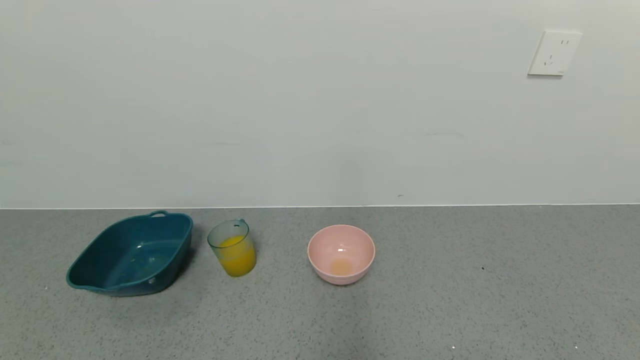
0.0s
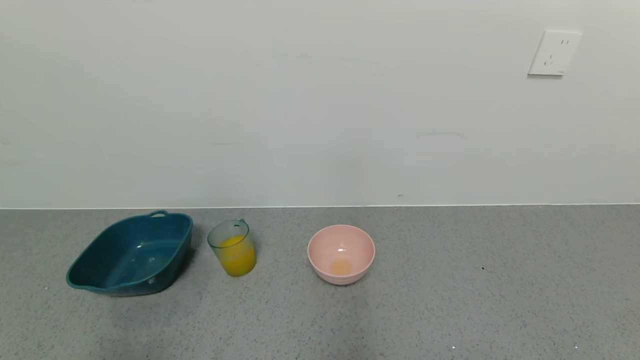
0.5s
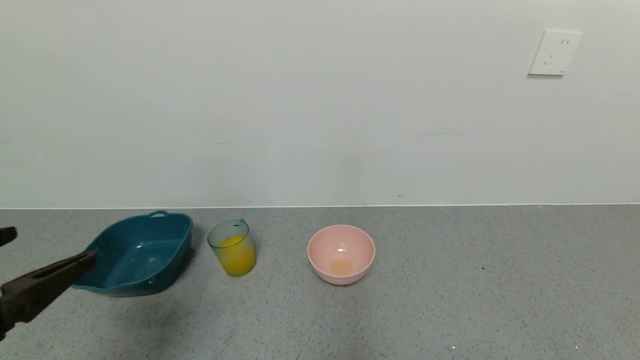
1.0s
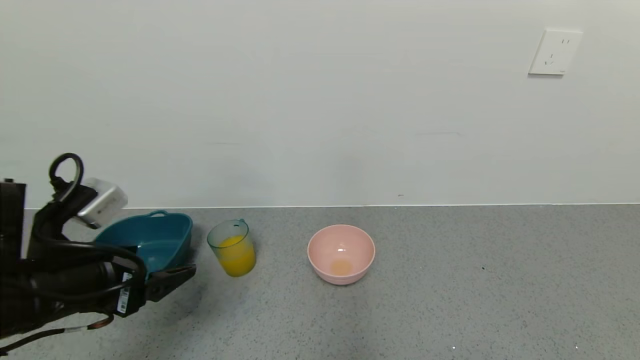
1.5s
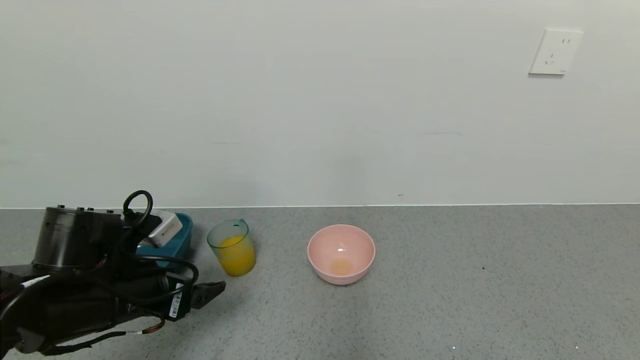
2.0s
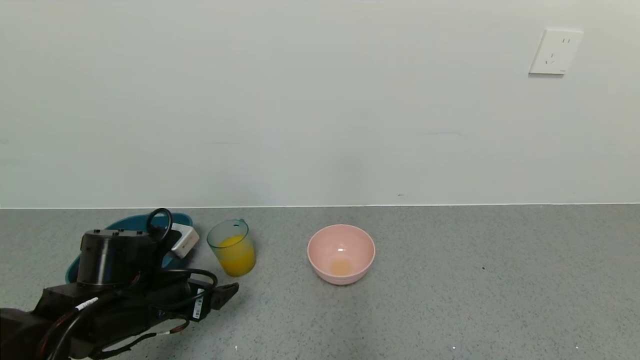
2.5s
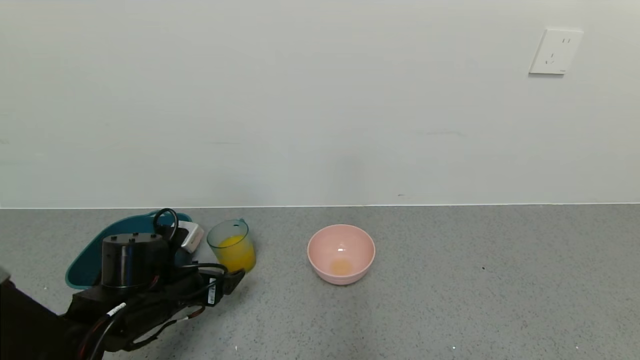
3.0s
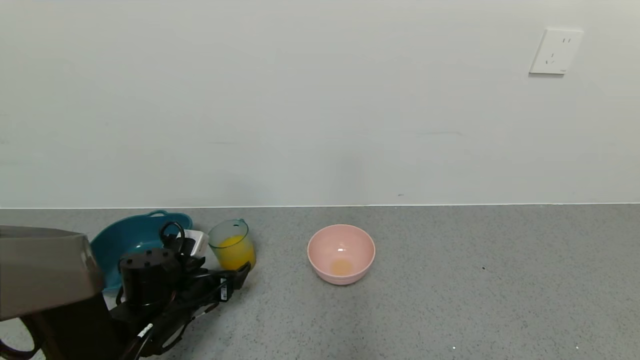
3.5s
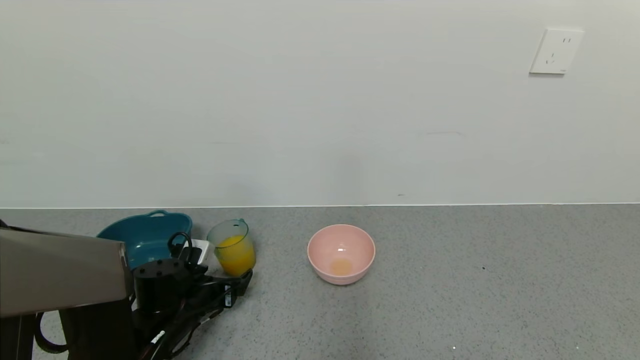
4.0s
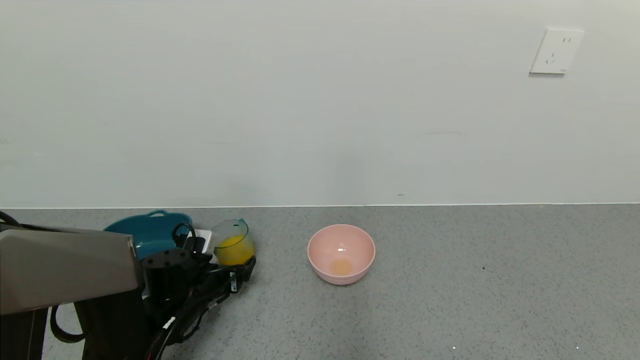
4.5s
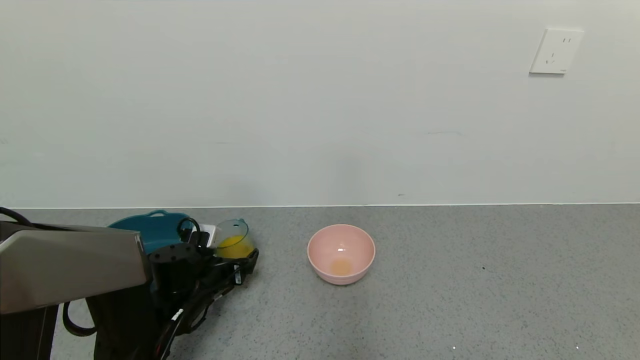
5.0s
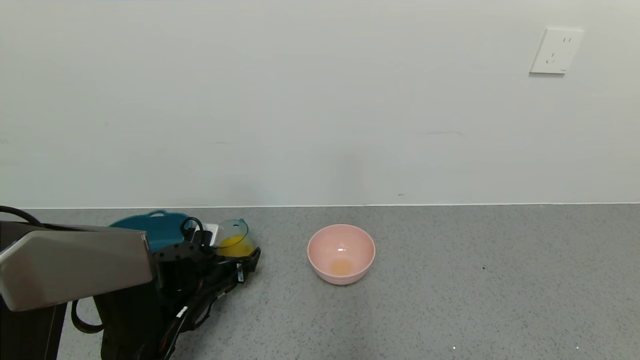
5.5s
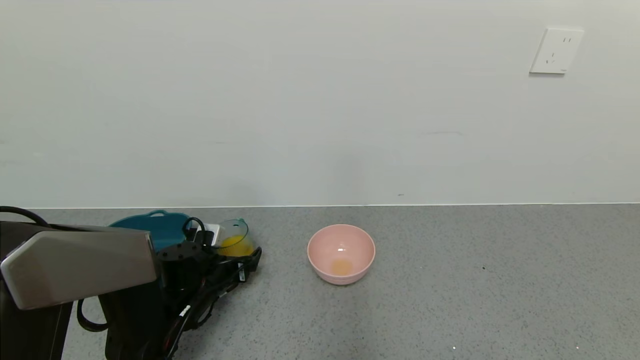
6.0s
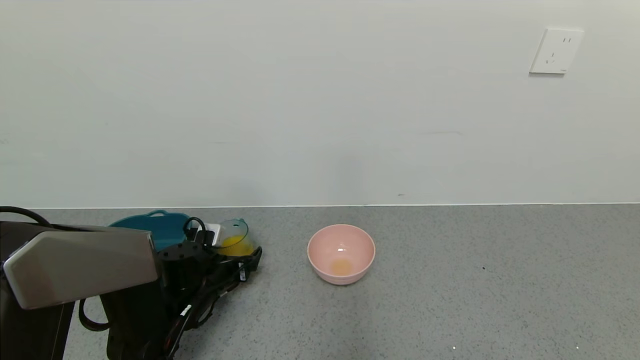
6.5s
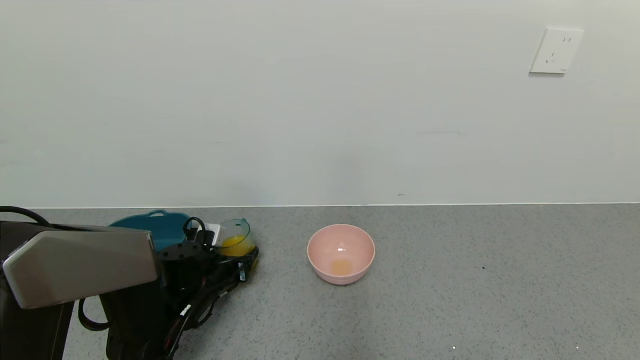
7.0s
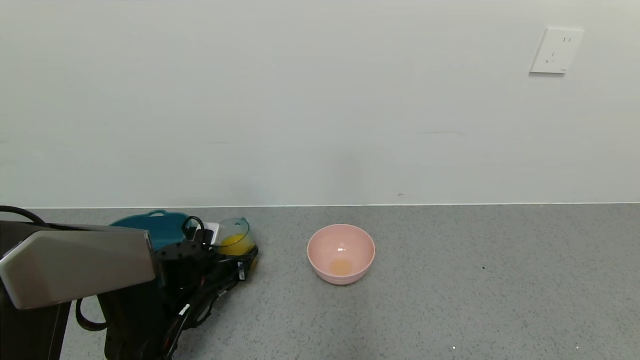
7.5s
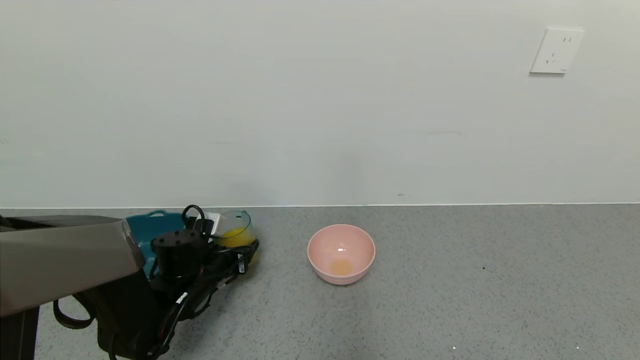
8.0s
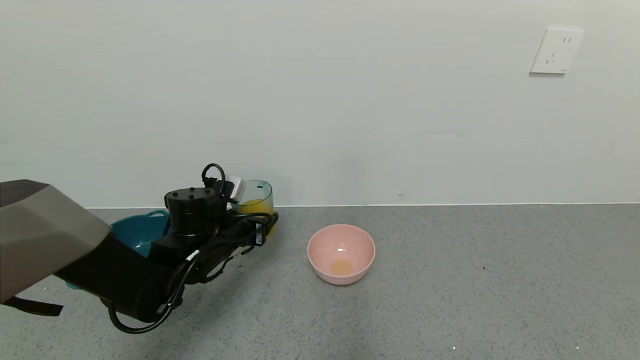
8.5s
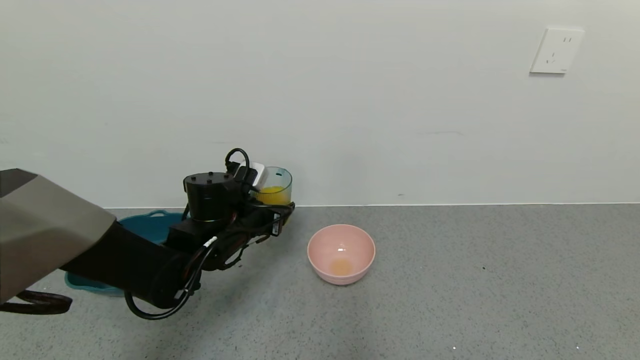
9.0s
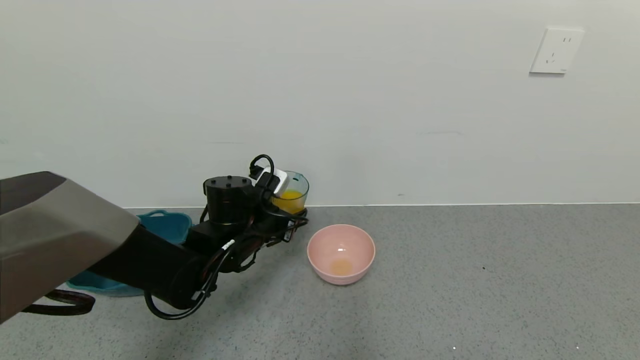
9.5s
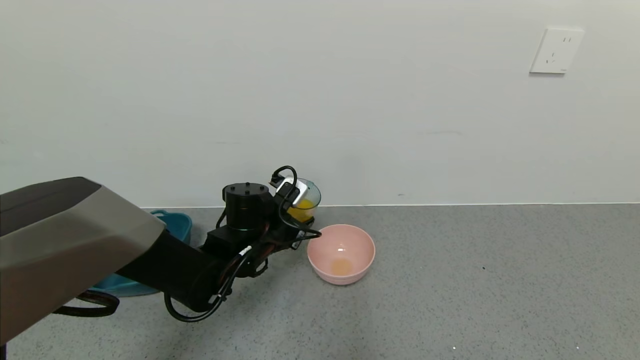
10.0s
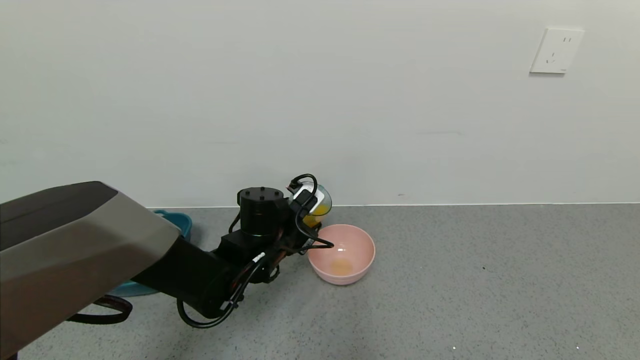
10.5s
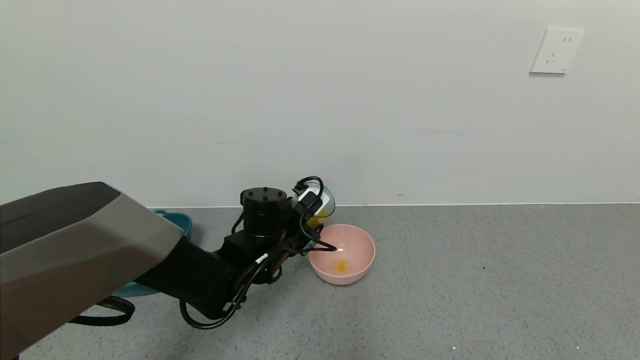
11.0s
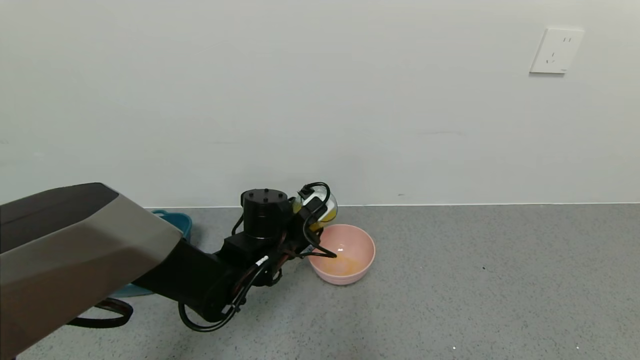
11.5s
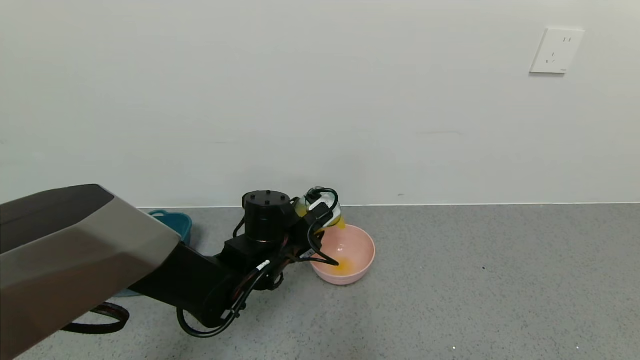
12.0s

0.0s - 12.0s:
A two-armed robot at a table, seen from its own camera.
Task of the whole recording: use a gripper to pick up the cup and pour the liquid into a bowl or tray.
Step, 0.0s - 7.5s: Pick up blue cup filled with orange juice with left gripper.
0.0s - 2.0s: The left gripper heads forward, covering about 25 cm.
2.0s - 4.0s: The left gripper moves downward and forward, approximately 15 cm.
4.0s - 6.0s: There are only small adjustments of the grippers.
6.0s - 8.0s: The left gripper closes.
8.0s - 10.0s: The left gripper shifts roughly 15 cm to the right and upward.

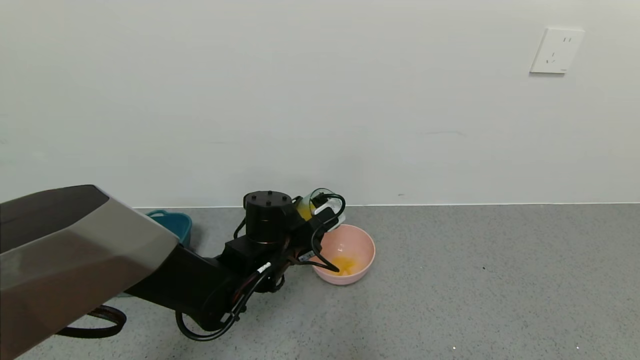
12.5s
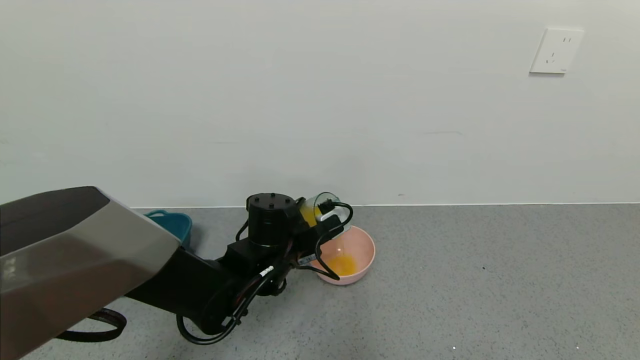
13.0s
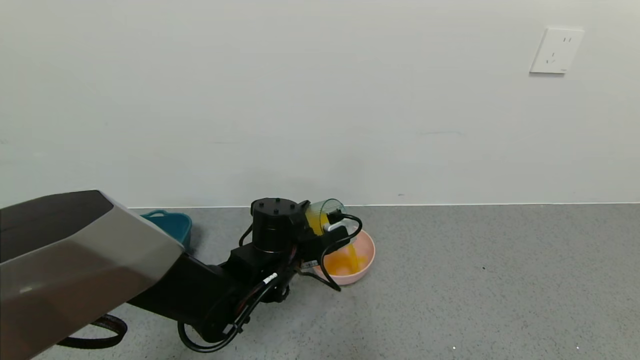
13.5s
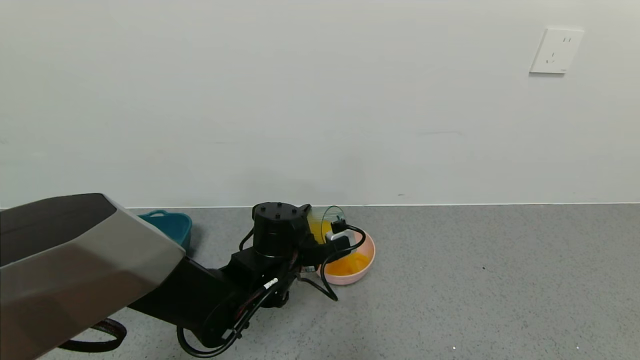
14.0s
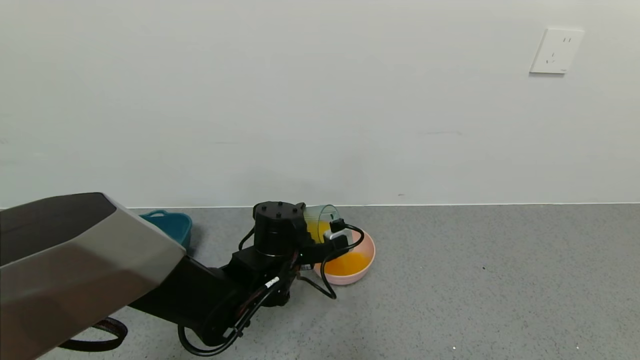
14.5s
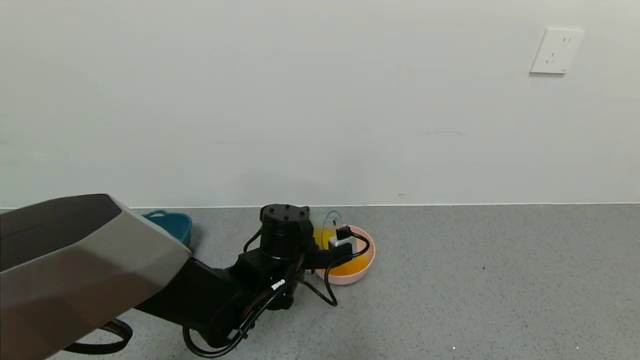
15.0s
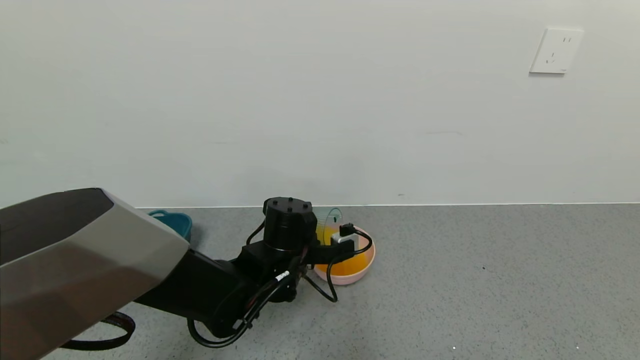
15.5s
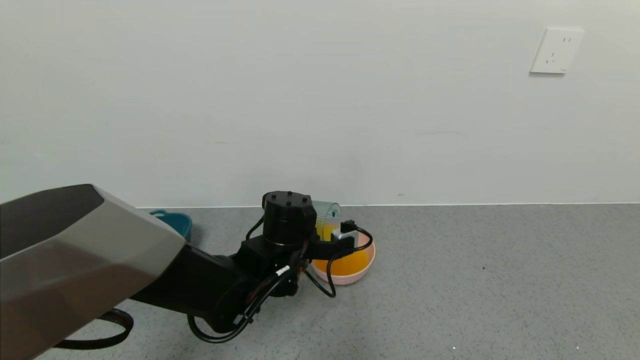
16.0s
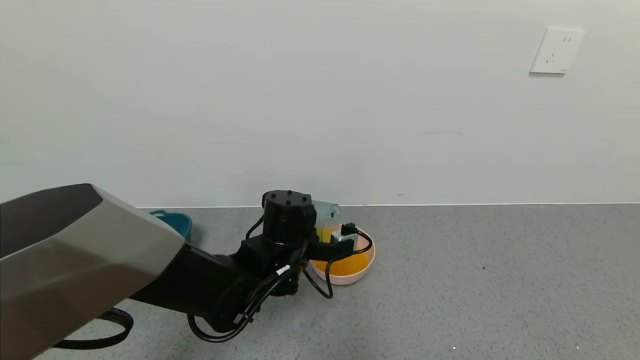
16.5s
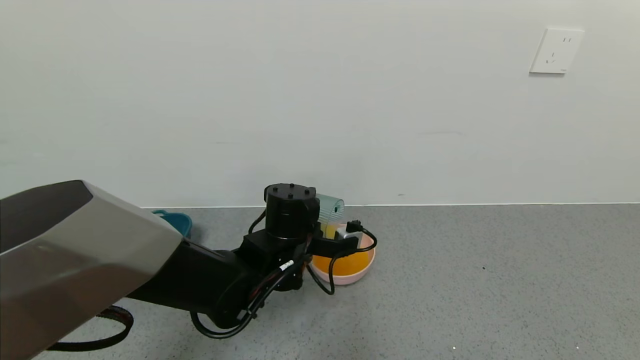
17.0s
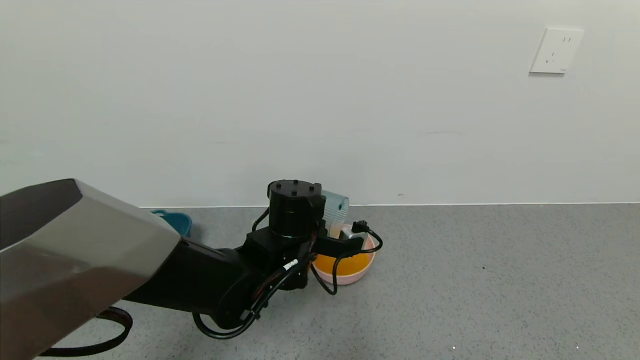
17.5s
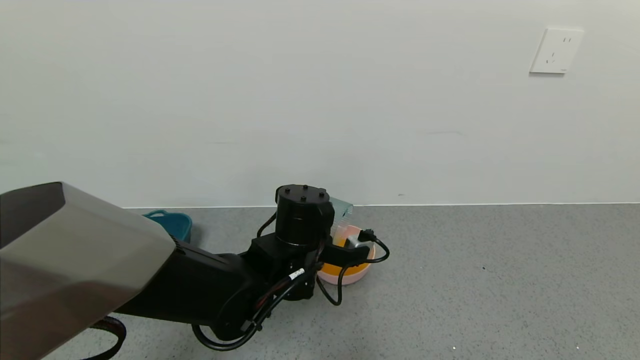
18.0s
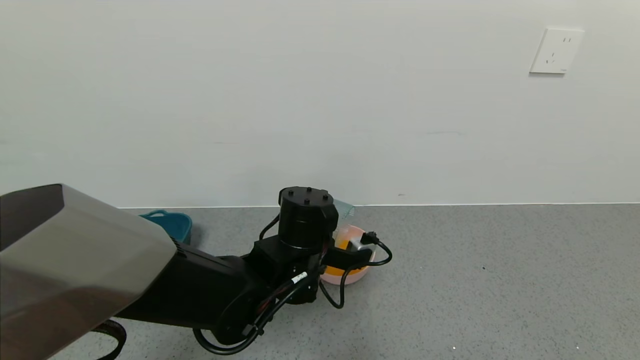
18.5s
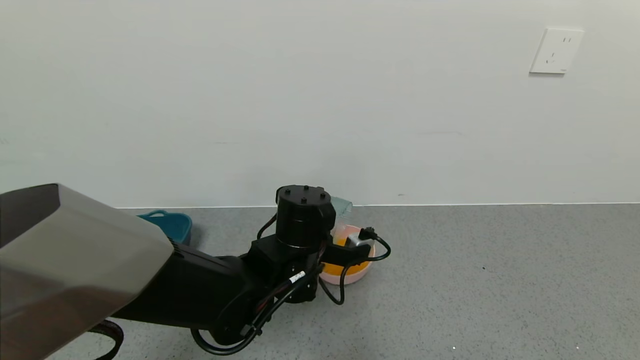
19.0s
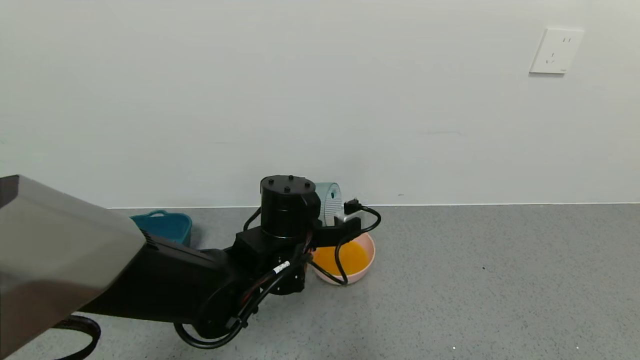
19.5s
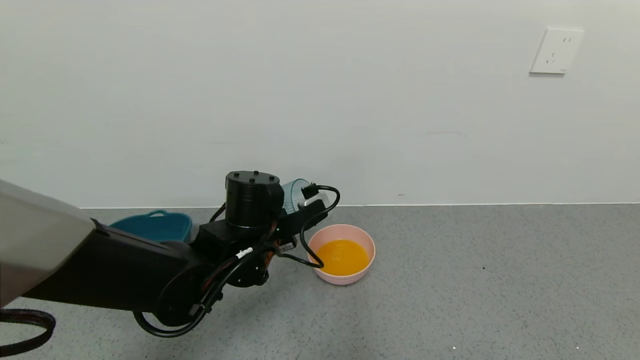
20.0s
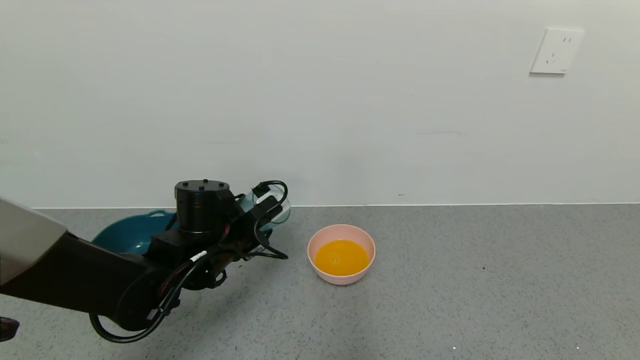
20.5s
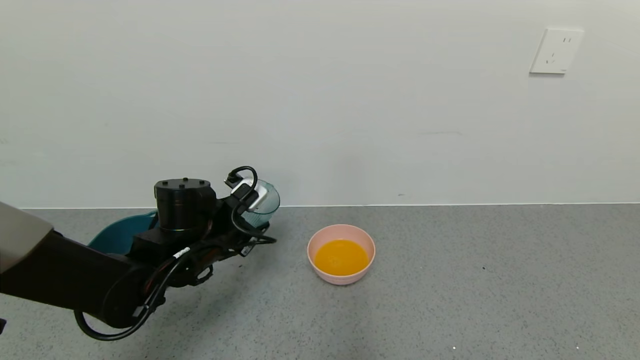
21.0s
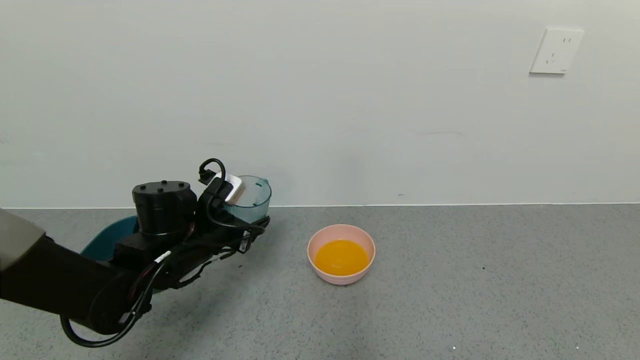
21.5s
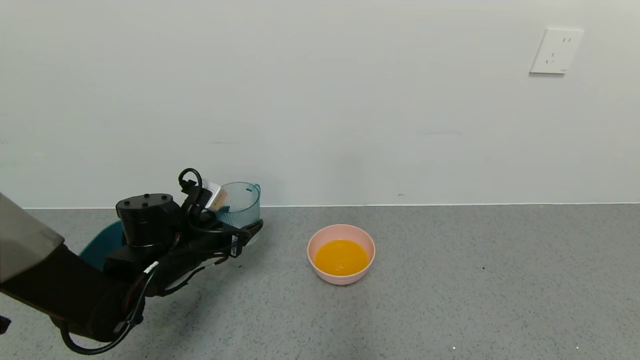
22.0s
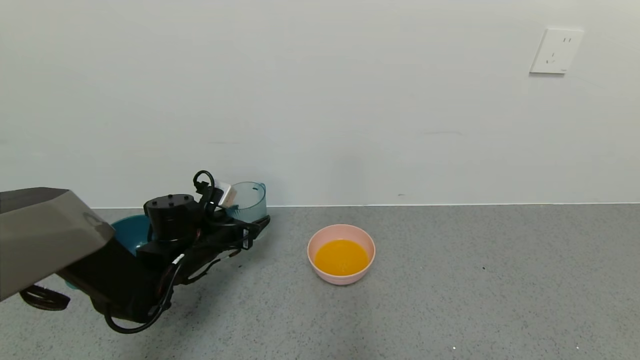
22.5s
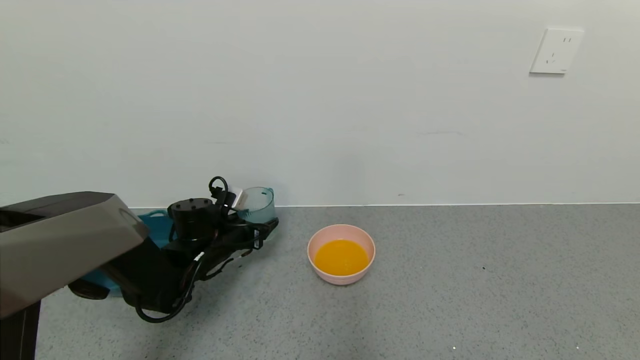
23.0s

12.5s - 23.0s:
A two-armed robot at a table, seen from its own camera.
Task of the whole recording: use a gripper to pick up the cup and pour the liquid into a bowl or tray.
Step, 12.5s - 19.0s: Pour the orange juice into the blue basin with left gripper.
14.5s - 16.5s: The grippers move only a little.
16.5s - 19.0s: The grippers move only a little.
19.0s - 21.0s: The left gripper travels to the left by about 15 cm.
21.0s - 23.0s: The left gripper shifts some 10 cm downward and forward.
